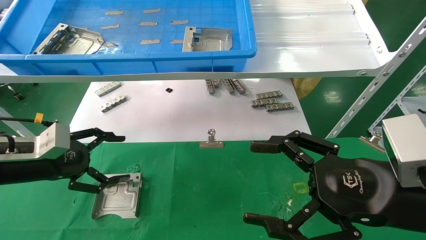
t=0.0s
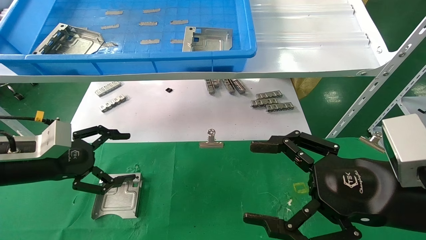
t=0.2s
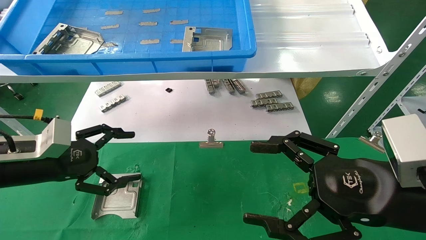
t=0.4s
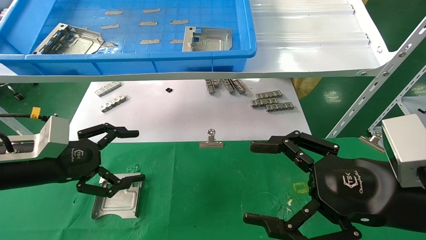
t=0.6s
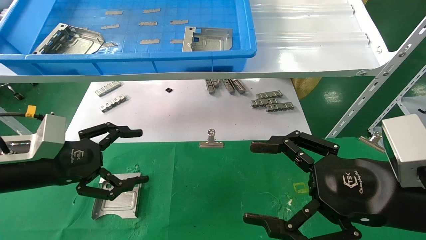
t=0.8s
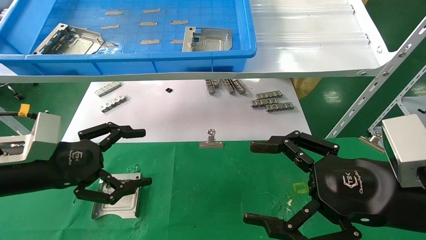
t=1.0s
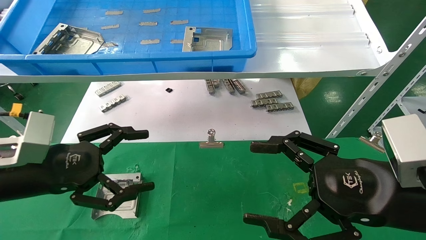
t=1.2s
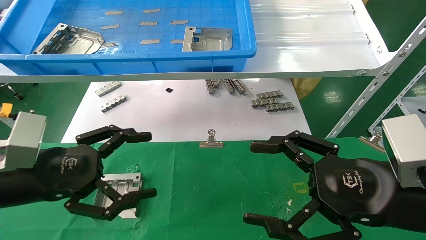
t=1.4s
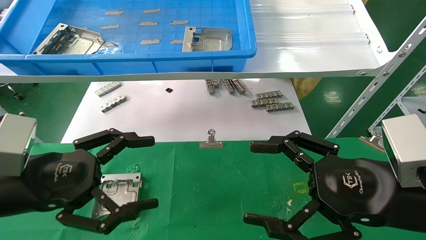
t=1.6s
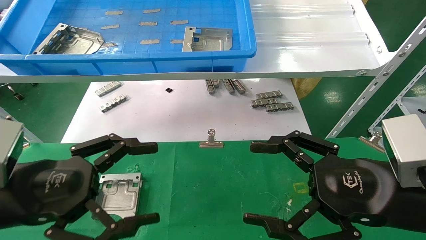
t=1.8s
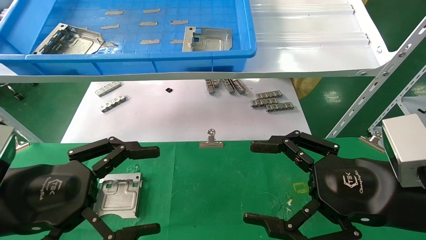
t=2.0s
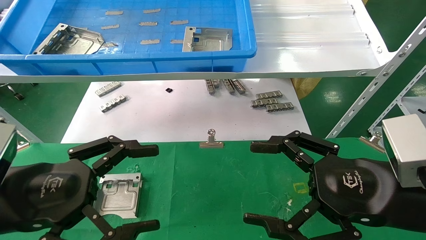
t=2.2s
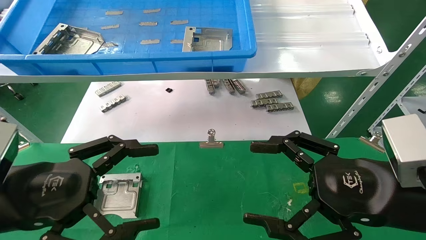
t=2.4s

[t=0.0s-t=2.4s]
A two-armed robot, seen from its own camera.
Task of the whole recording: use the mechanical arm to pick up the parts and place them on the table.
t=0.0s to t=1.2s: The left gripper heads backward and to the right, covering roughly 10 cm.
t=1.2s to t=2.4s: The left gripper moves backward, about 5 cm.

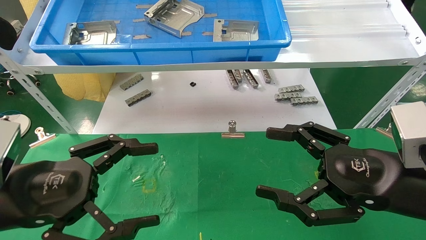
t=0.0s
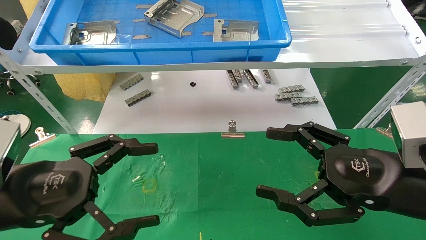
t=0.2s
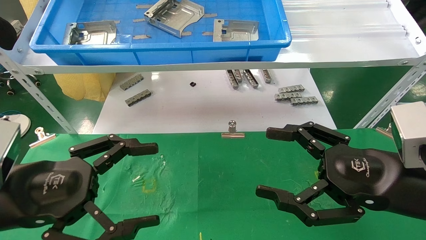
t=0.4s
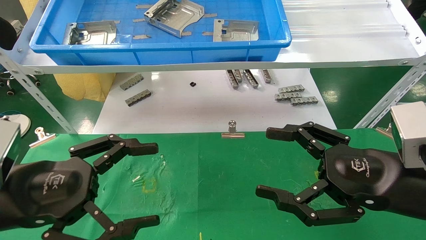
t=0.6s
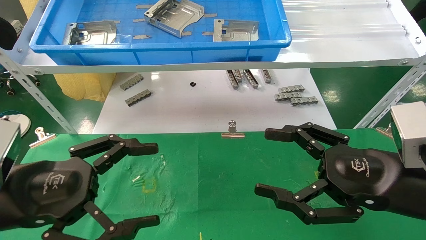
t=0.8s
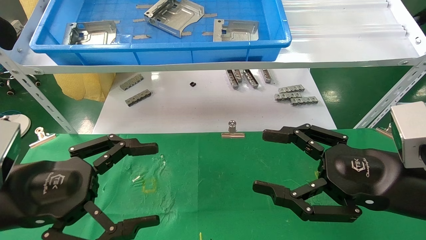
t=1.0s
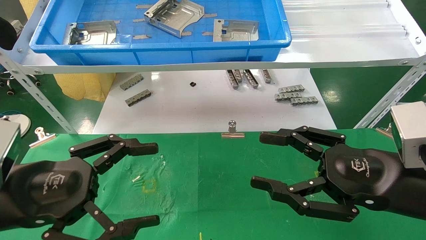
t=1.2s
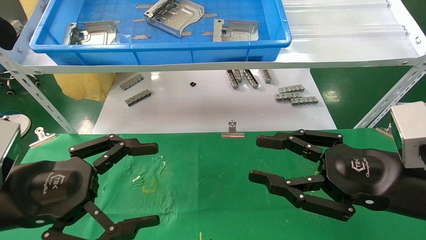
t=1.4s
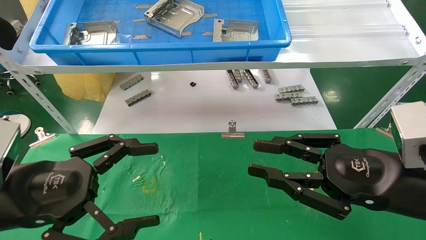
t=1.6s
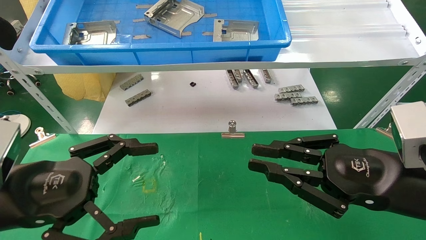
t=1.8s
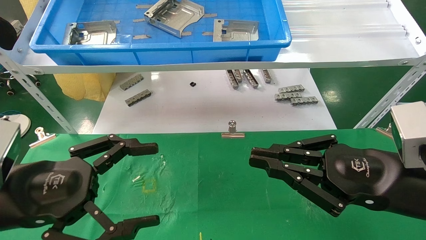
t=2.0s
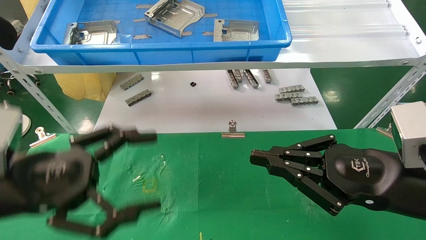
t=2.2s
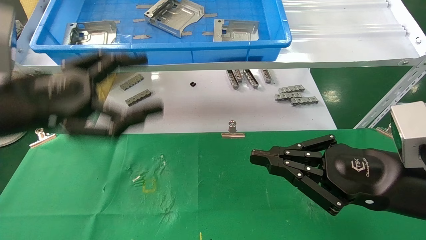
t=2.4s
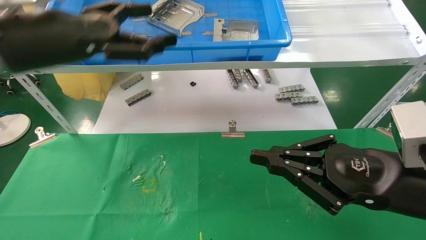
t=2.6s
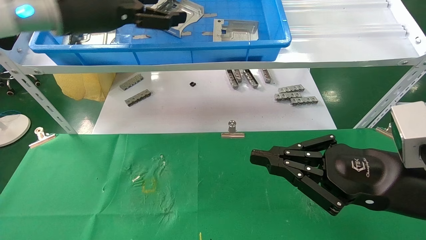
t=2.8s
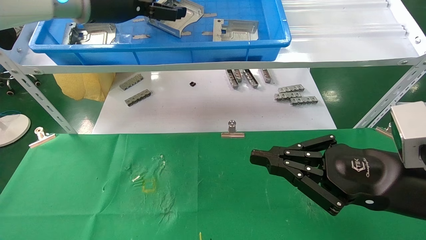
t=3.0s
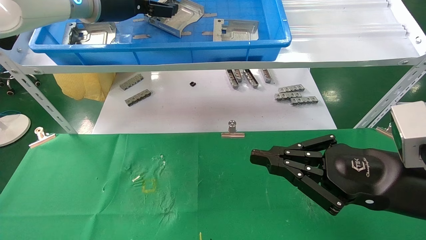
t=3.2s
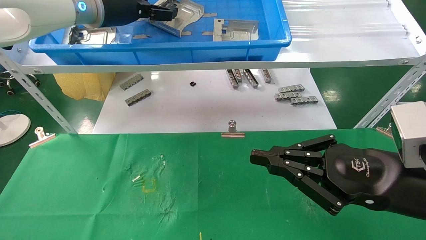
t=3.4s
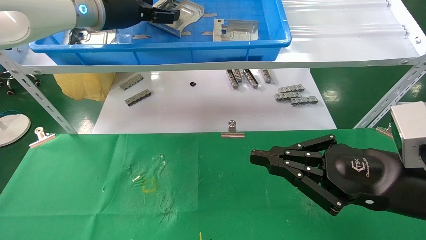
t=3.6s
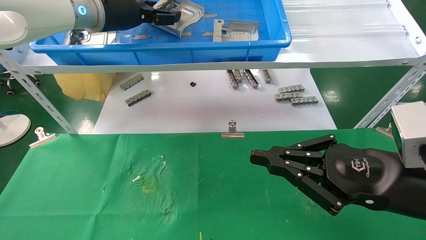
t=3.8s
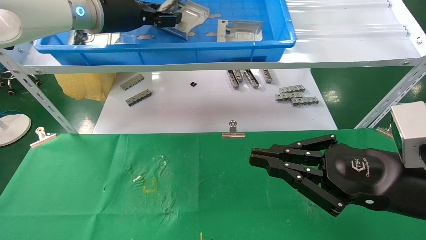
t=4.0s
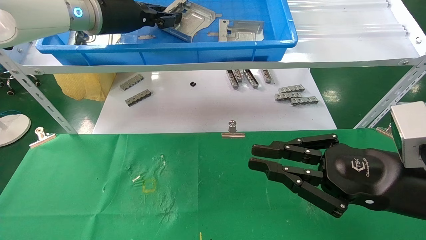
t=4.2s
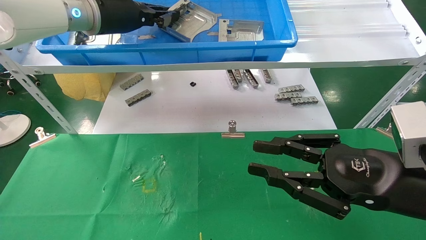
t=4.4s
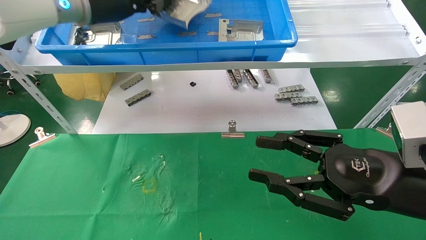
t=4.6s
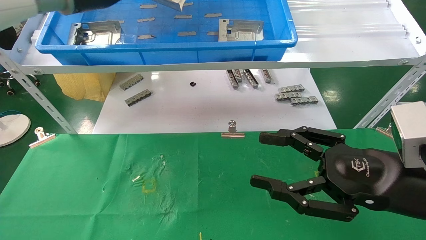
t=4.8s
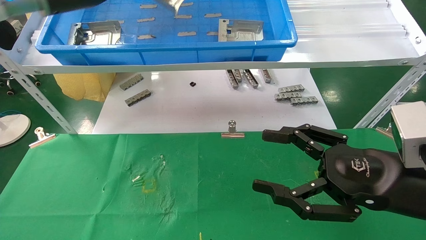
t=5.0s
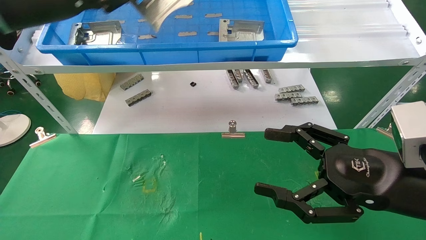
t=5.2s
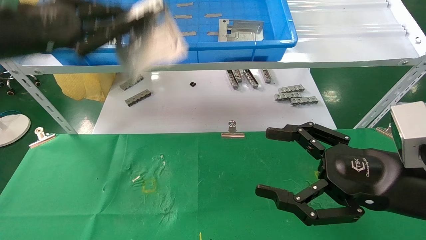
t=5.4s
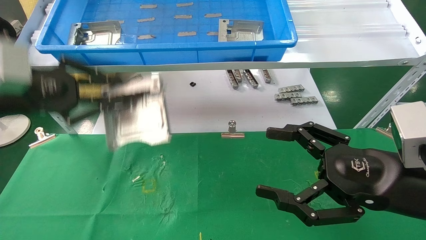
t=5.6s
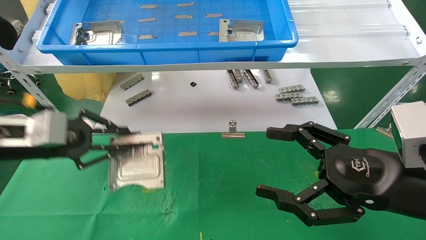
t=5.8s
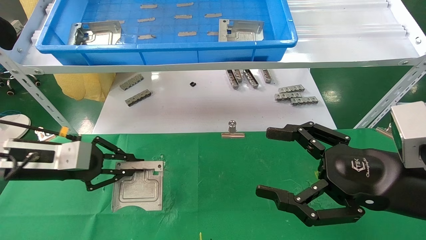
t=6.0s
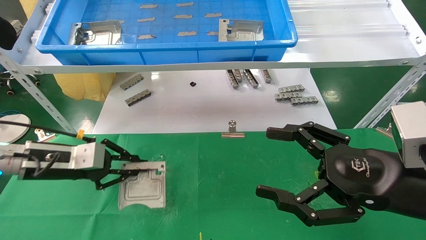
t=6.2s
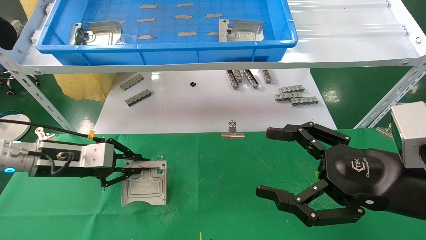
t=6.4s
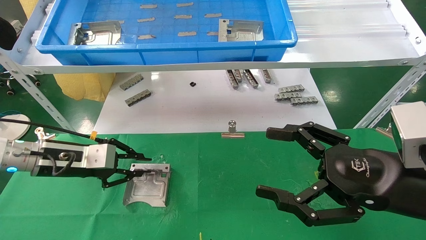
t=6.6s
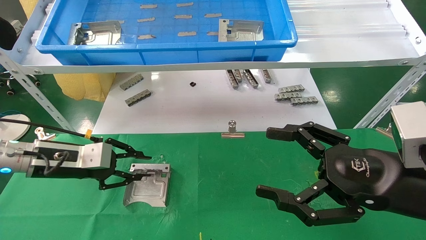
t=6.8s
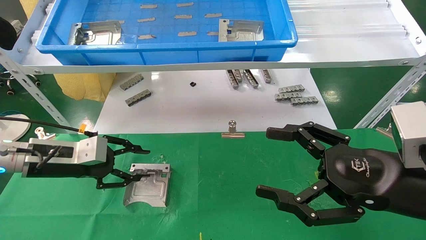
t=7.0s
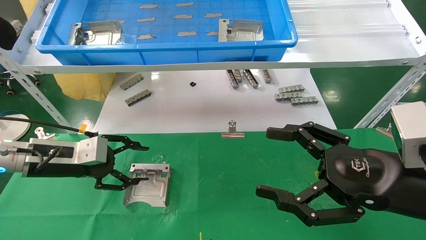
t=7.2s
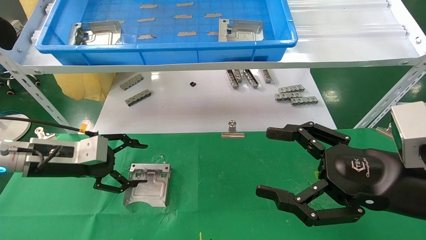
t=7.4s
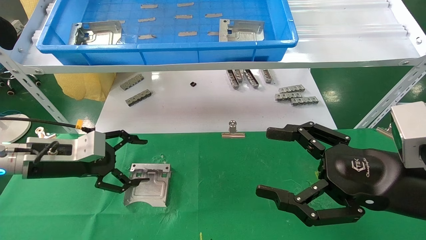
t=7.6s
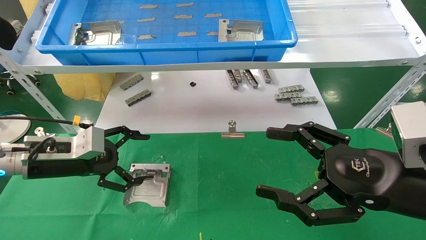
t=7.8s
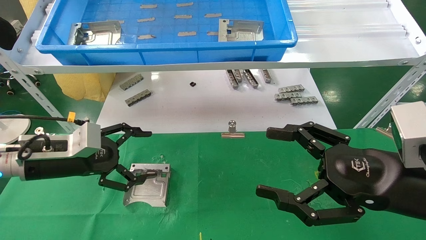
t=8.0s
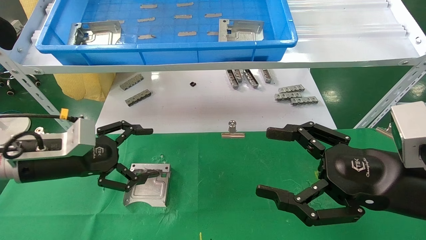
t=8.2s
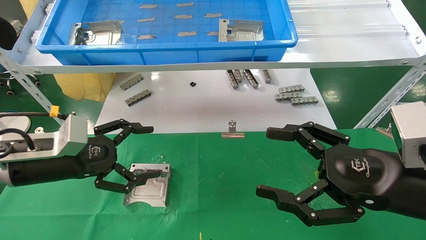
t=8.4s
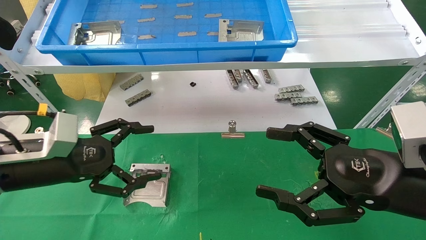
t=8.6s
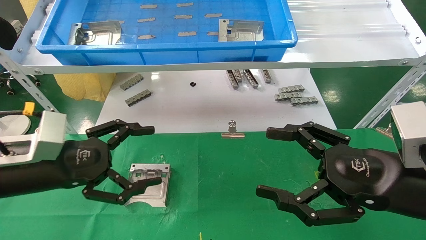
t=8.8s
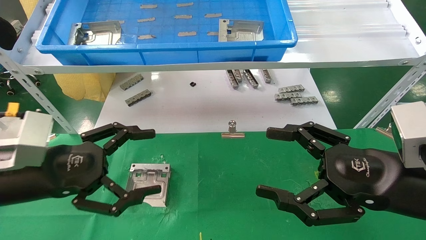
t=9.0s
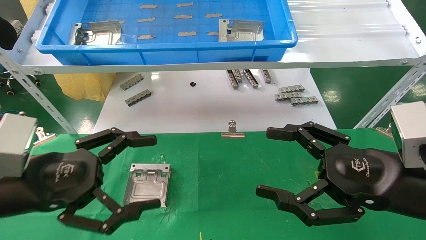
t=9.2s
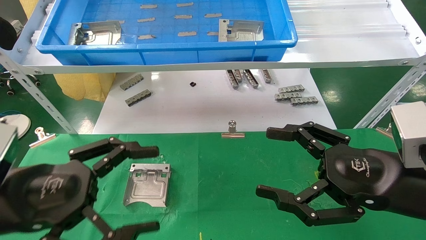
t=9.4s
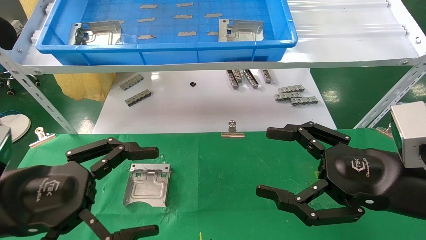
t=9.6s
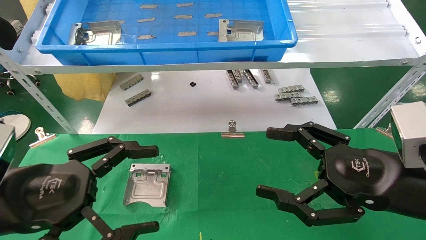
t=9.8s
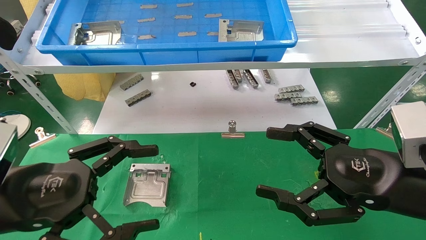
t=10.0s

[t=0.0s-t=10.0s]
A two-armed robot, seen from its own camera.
Task of the whole recording: use the mechanical arm to pick up the parts and place them on the table.
Step, t=2.4s to t=4.4s: Pick up the hard drive bracket from the feeding area.
Step, t=4.6s to t=7.0s: Place the hard drive bracket into the box.
t=0.0s to t=1.4s: The right gripper closes its fingers.
t=1.4s to t=2.8s: The right gripper closes its fingers; the left gripper heads upward and forward, covering some 30 cm.
t=2.8s to t=4.2s: The left gripper is displaced forward by approximately 5 cm, and closes.
t=4.2s to t=5.8s: The right gripper opens, while the left gripper goes roughly 25 cm downward, to the left and backward.
t=5.8s to t=7.2s: The left gripper goes roughly 5 cm downward, and opens its fingers.
t=7.2s to t=8.6s: The left gripper goes some 5 cm backward, and opens.
t=8.6s to t=10.0s: The left gripper travels backward by some 10 cm.

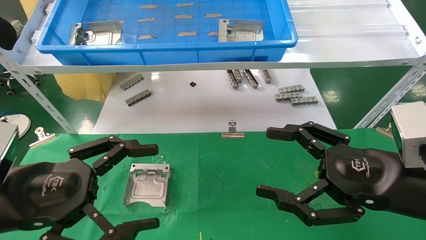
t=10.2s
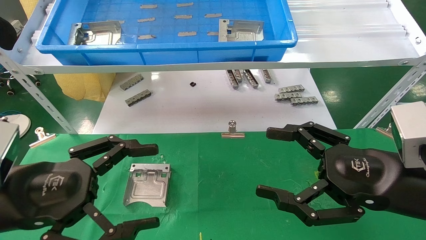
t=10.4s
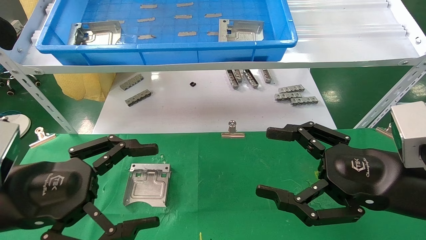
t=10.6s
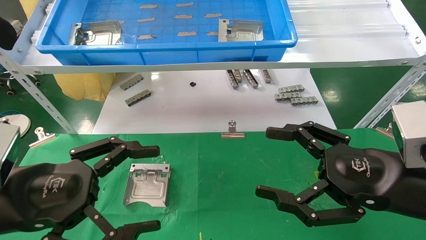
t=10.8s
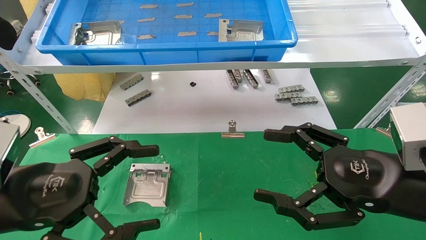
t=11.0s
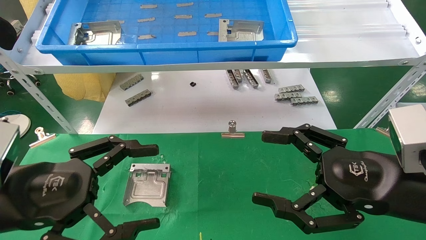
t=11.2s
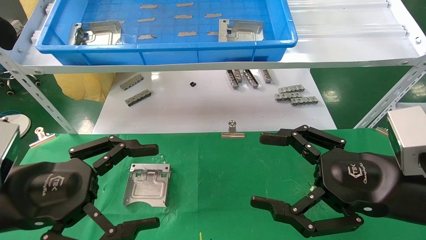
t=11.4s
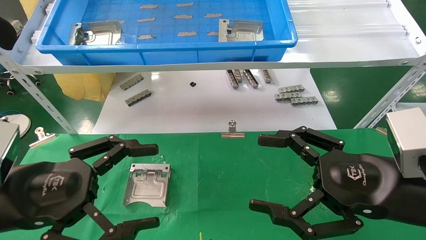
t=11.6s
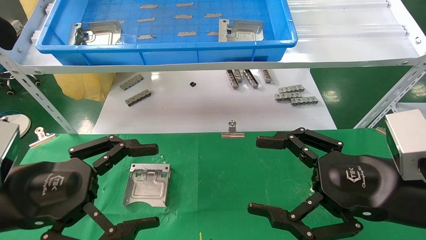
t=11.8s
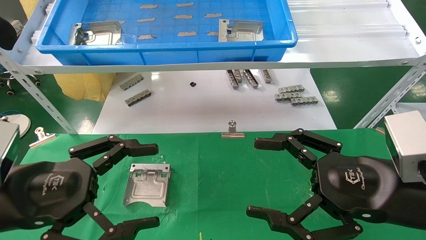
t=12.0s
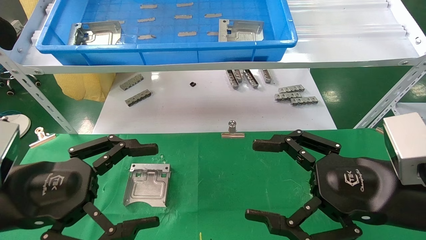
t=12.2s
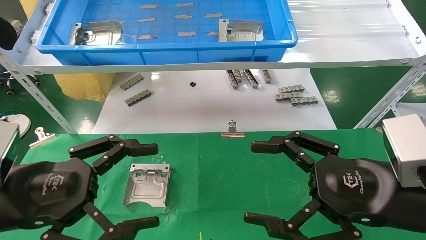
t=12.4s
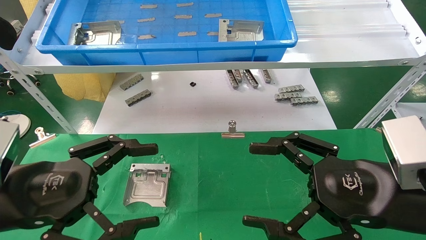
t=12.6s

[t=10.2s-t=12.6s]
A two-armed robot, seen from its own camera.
Task of the whole recording: use the mechanical arm to pick up the parts and place them on the table.
t=10.2s to t=11.4s: The two grippers keep their place.
t=11.4s to t=12.6s: Both grippers stay put.

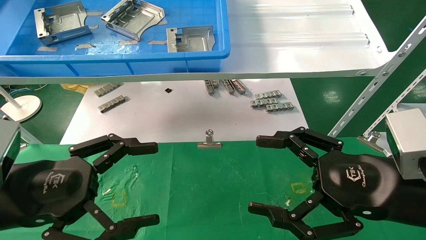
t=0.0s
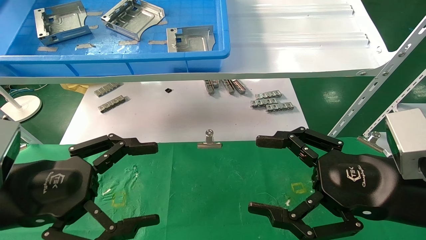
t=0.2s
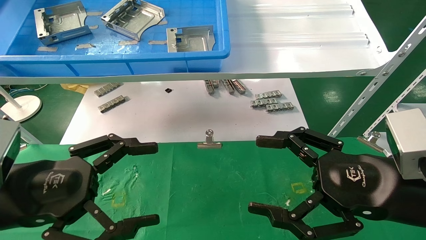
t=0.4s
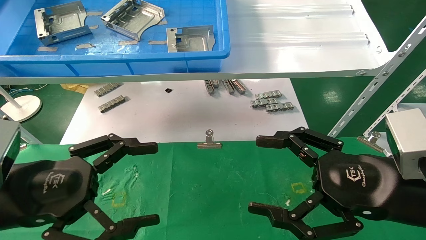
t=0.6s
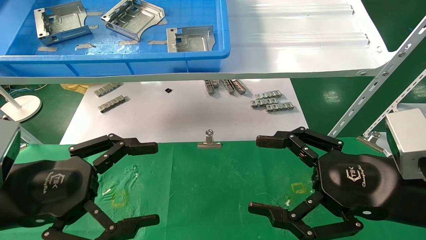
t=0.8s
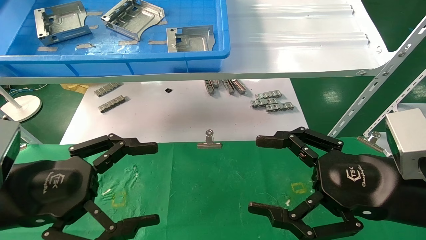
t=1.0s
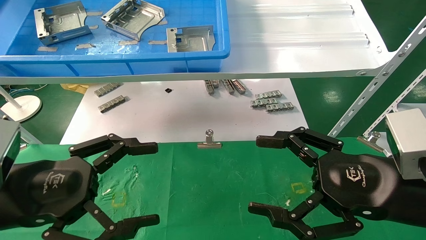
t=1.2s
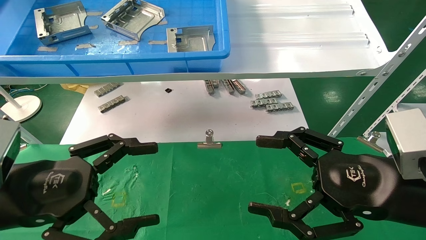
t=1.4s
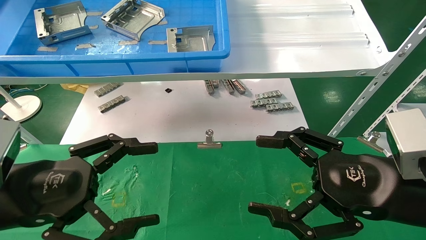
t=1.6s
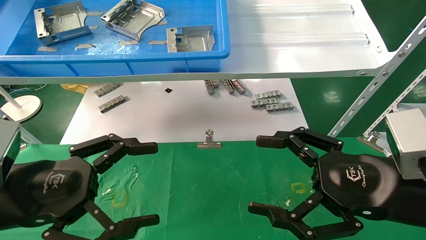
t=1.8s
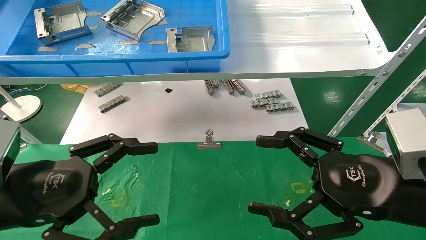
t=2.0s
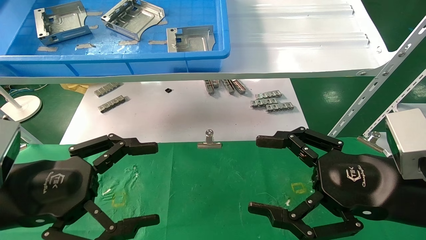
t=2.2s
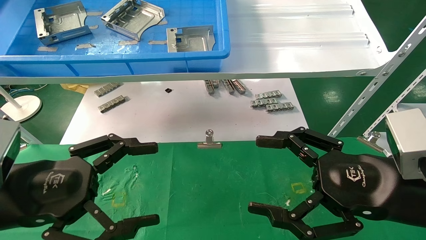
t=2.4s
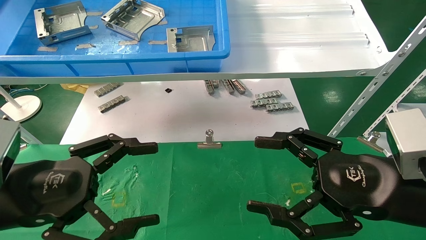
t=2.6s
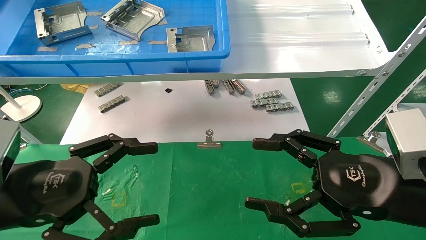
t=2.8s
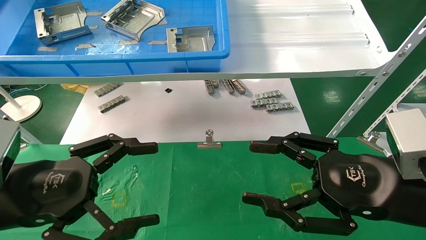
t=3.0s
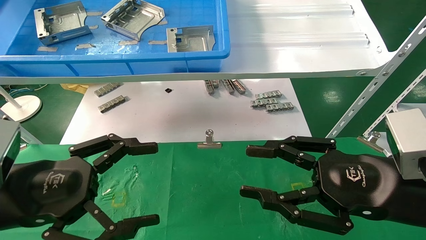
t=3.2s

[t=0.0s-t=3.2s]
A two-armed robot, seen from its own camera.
Task of the whole recording: use the mechanical arm to pick up the parts and place them on the table.
t=0.0s to t=1.6s: Both grippers stay about where they are.
t=1.6s to t=3.2s: The right gripper closes up.
